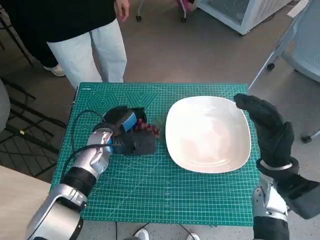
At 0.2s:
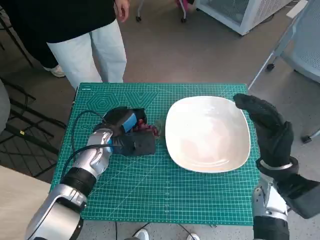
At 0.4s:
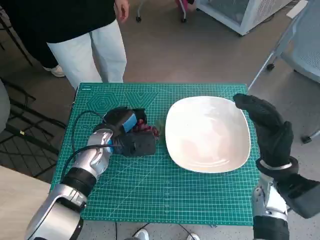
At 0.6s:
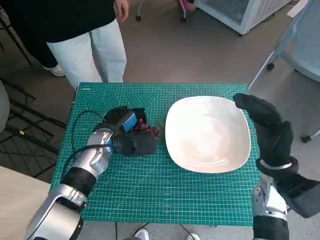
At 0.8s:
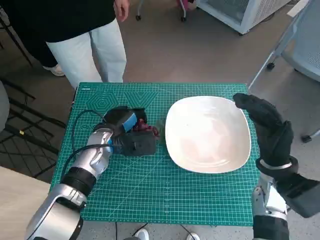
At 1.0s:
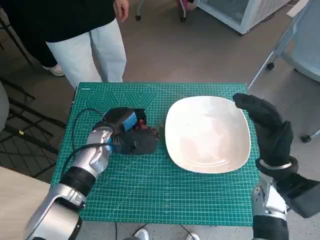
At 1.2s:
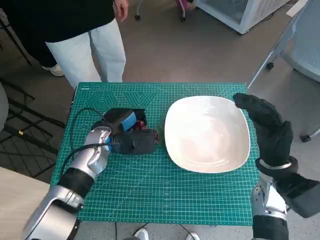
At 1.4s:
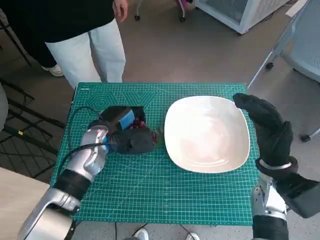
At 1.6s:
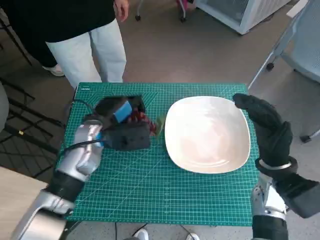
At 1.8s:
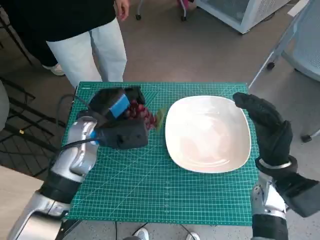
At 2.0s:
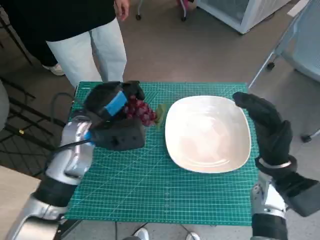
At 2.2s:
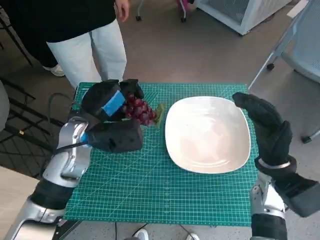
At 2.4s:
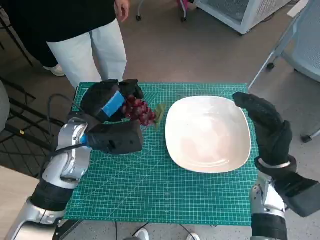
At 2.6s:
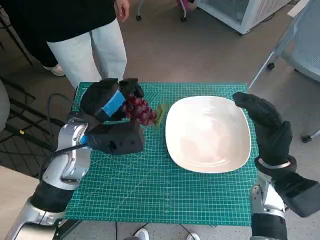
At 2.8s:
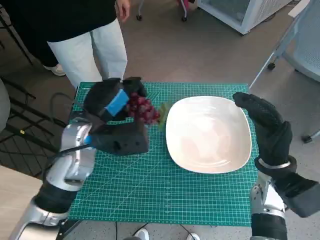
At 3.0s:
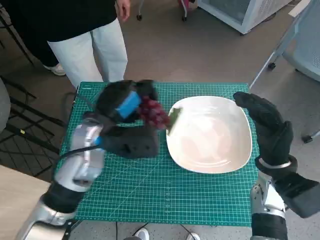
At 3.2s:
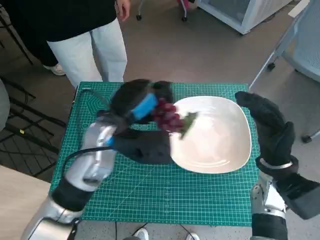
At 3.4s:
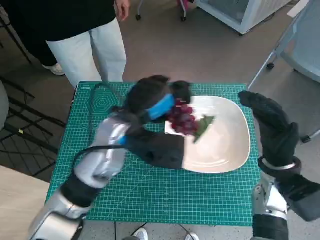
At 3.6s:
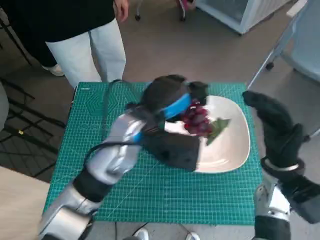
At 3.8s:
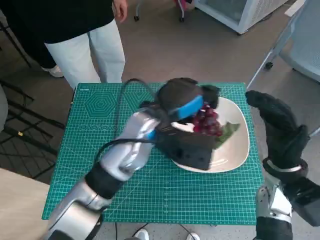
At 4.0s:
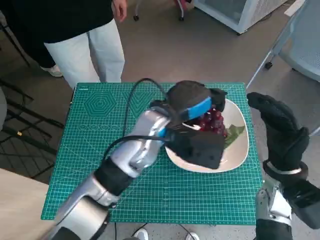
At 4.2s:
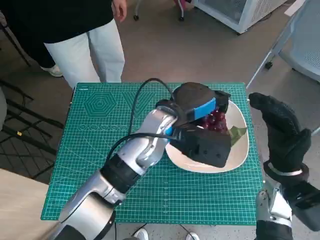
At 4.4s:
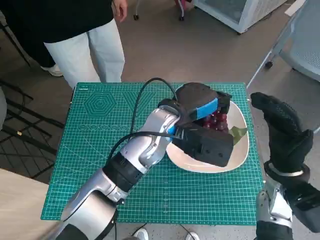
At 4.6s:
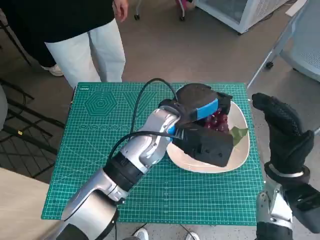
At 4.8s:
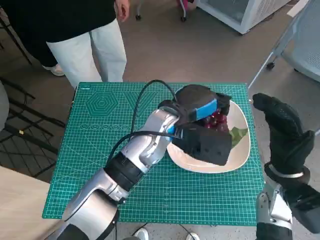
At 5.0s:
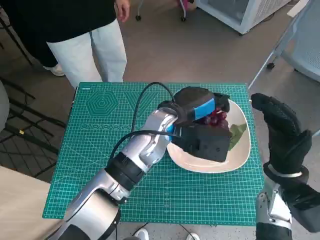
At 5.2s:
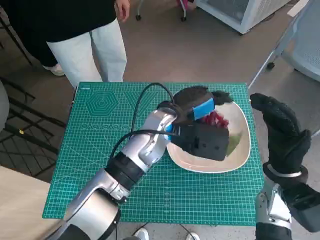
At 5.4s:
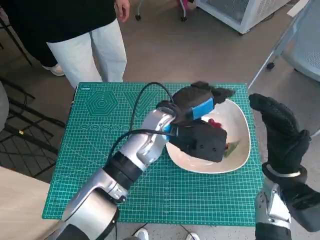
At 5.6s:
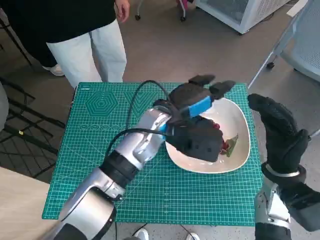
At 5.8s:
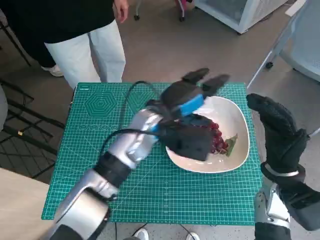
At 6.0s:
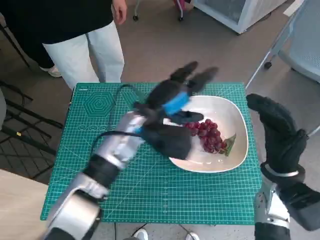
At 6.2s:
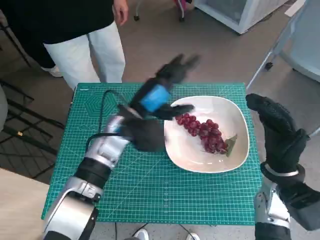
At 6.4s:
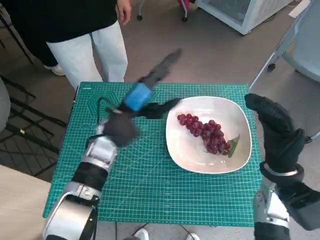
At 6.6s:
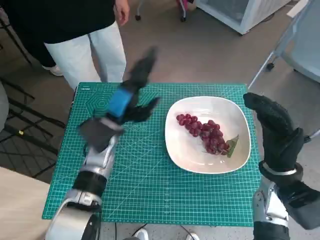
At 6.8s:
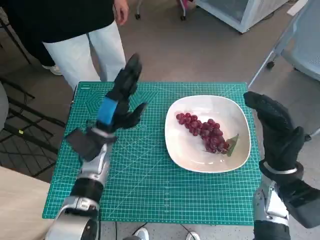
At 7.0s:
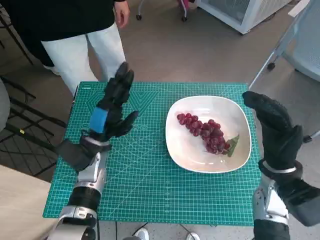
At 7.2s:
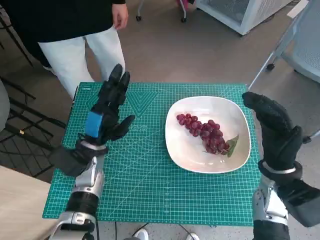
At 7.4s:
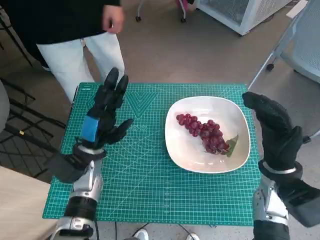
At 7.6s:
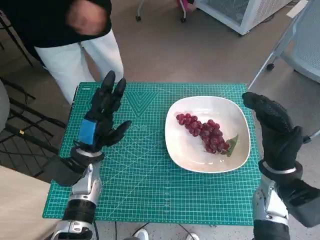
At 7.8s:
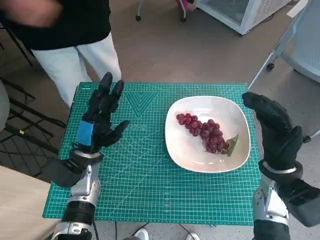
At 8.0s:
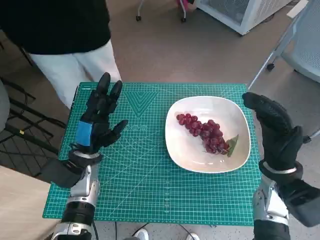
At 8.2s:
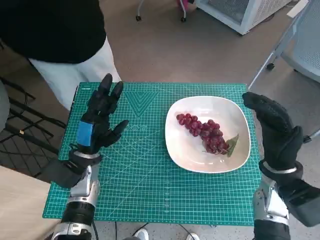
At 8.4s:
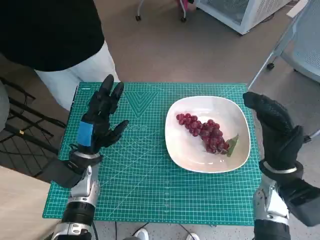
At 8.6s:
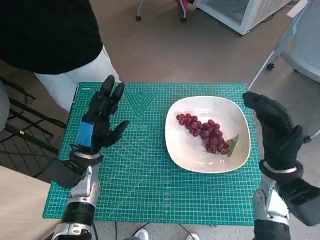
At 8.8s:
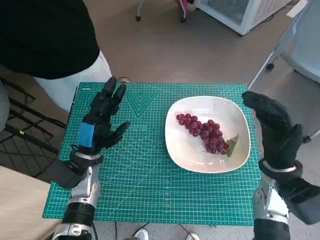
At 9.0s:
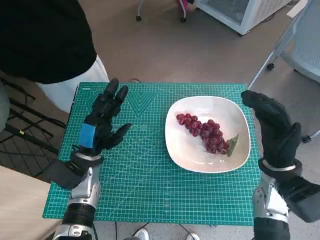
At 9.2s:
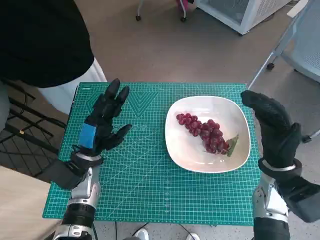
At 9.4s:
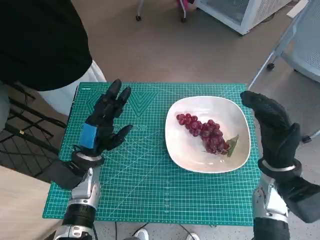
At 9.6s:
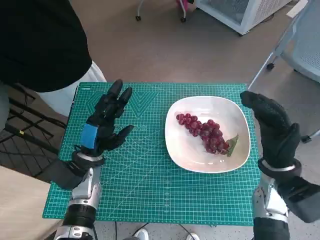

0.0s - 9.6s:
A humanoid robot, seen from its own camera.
Task of the whole recording: Pick up the grapes and put them on the plate.
Step, 1.0s - 5.4s: Place the grapes in the plate with left hand.
0.0s - 1.6s: The hands make only small movements.
1.6s - 3.2s: The left hand shifts some 5 cm upward.
3.2s - 4.8s: The left hand travels to the right by roughly 10 cm.
4.8s - 6.4s: The left hand goes some 10 cm to the left.
6.4s - 8.0s: The left hand shifts some 10 cm to the left, downward and backward.
8.0s - 9.6s: Both hands stay put.

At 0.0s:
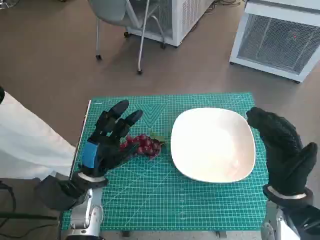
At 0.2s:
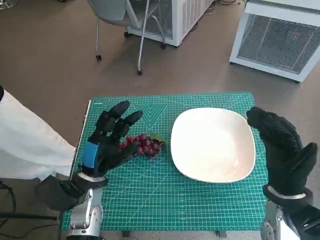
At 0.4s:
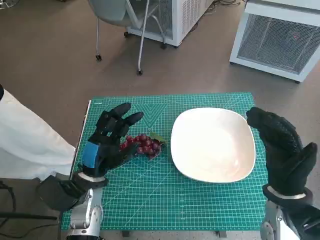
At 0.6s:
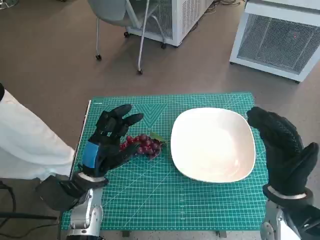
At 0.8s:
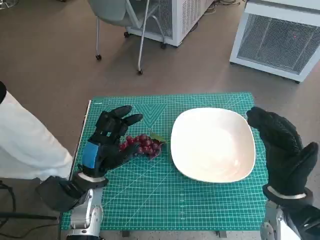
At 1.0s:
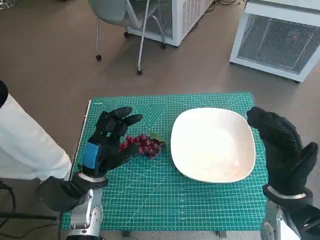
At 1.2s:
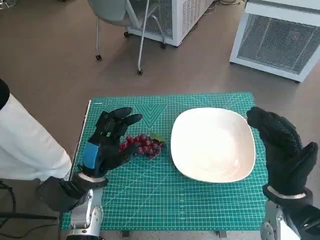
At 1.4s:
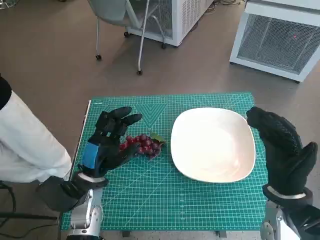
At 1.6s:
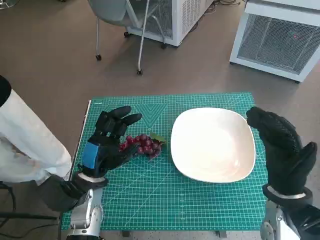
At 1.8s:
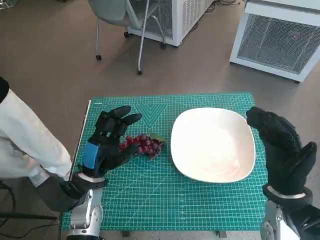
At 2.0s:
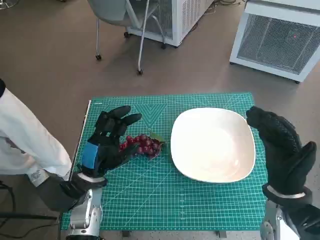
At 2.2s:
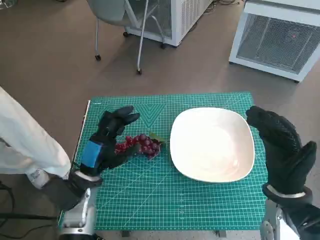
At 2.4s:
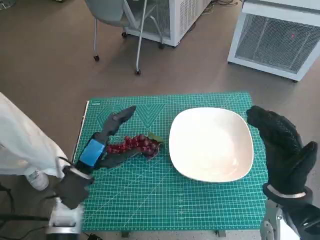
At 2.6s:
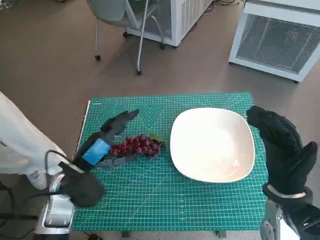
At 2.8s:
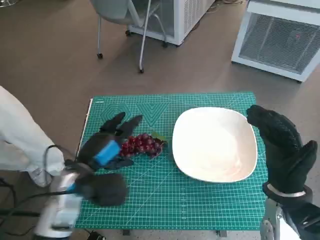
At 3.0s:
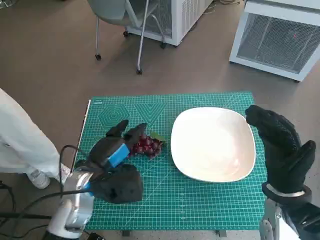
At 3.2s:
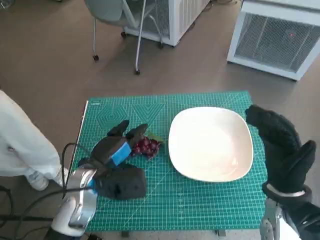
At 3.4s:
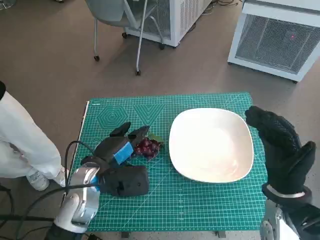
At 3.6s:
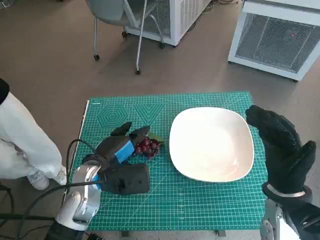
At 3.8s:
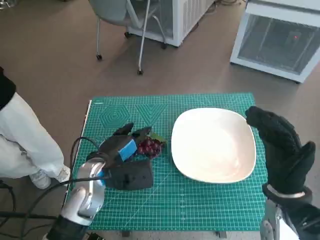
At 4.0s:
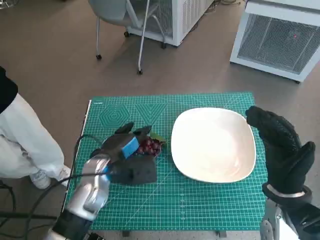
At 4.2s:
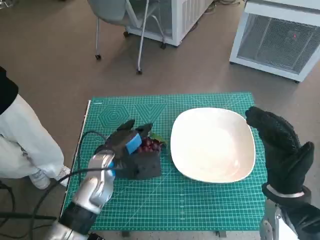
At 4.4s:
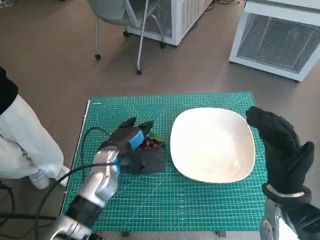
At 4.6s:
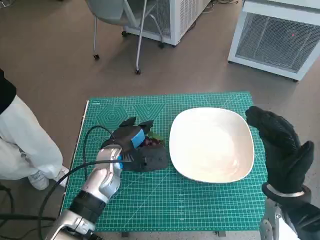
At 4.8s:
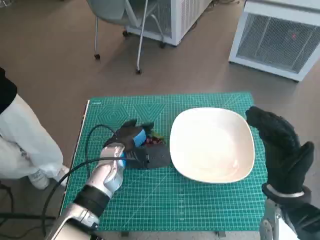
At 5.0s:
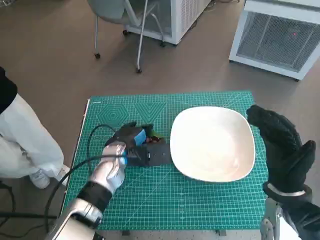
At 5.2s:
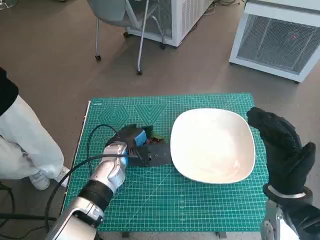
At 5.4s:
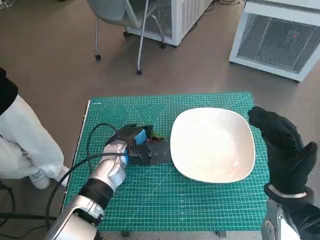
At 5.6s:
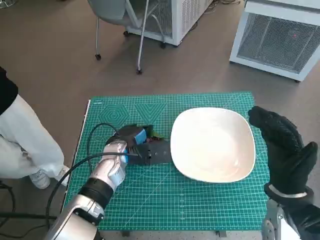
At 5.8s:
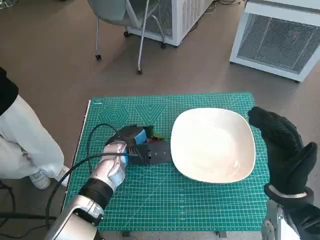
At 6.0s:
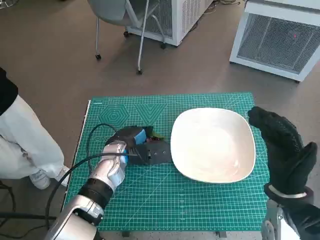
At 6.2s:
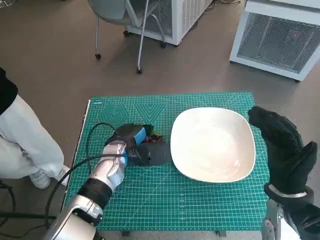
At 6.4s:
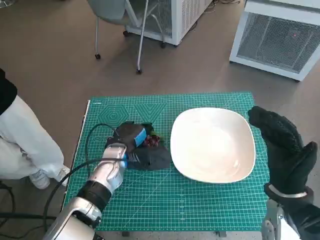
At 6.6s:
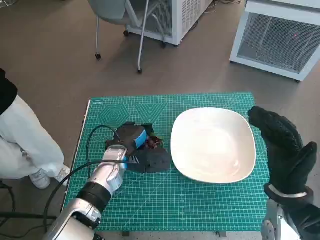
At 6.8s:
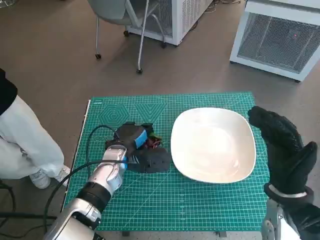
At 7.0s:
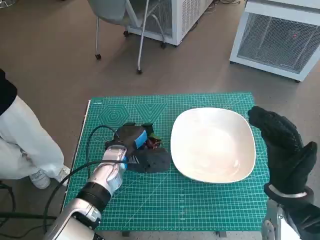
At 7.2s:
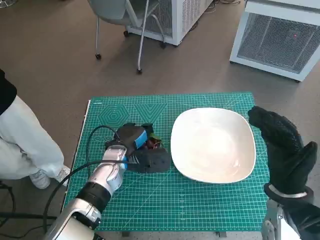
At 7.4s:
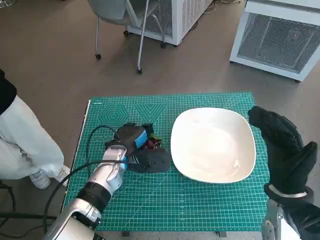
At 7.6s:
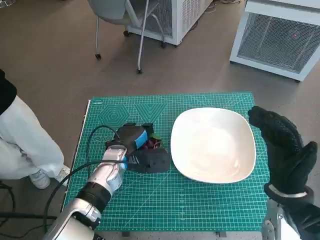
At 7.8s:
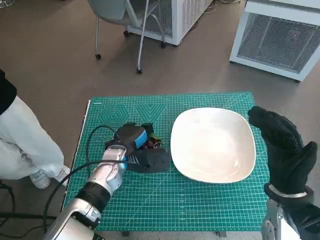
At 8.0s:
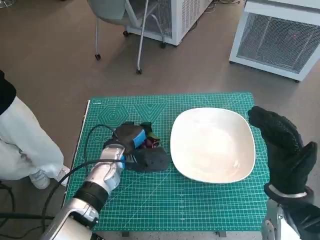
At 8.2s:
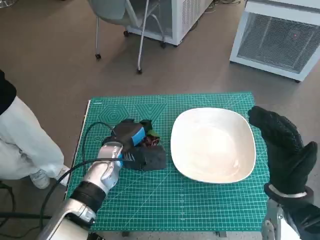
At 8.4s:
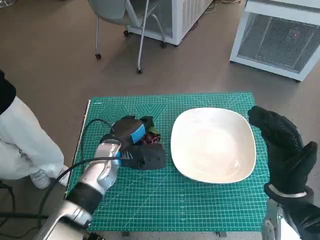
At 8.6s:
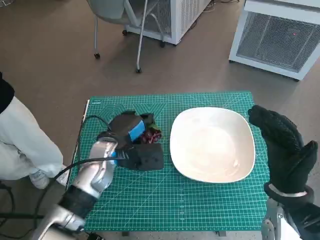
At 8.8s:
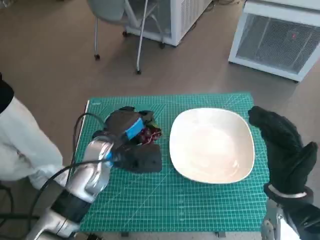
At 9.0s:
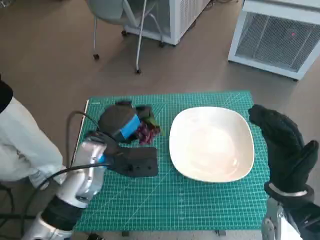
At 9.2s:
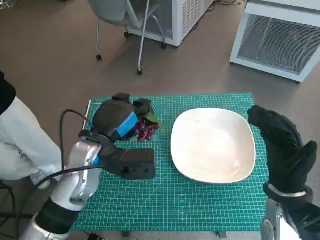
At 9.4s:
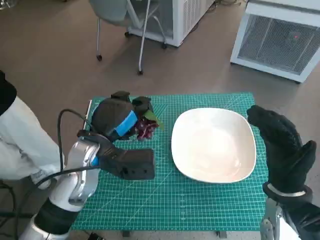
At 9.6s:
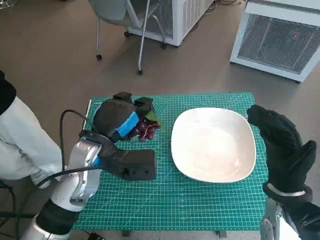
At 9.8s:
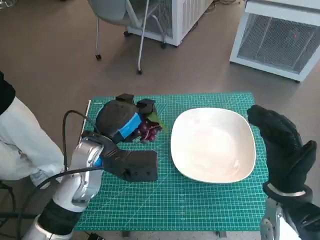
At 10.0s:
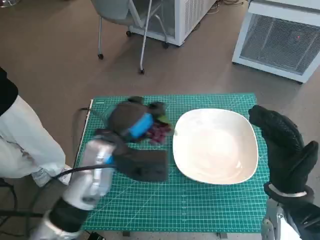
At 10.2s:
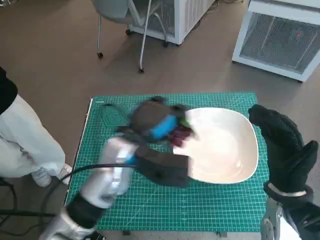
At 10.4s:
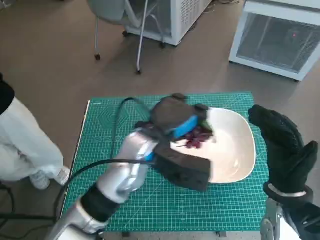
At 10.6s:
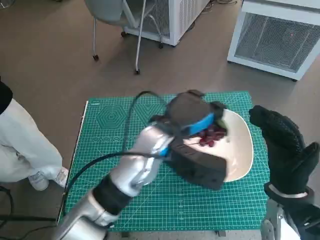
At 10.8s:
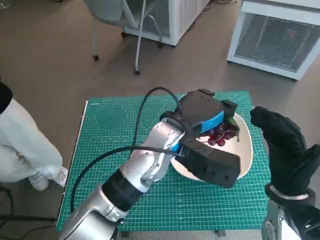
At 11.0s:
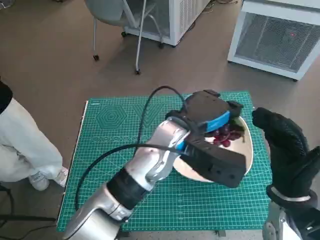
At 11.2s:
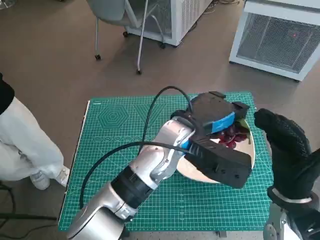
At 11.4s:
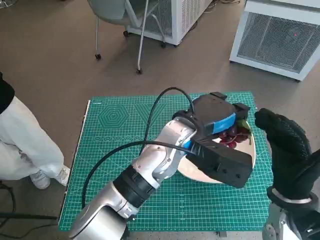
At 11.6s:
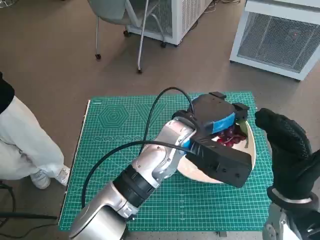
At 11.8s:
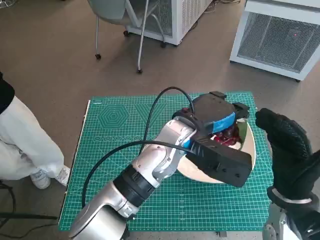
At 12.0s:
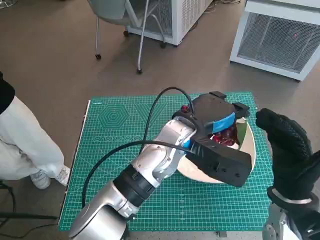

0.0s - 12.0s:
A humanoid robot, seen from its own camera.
Task of the whole recording: Pick up the grapes and put them on the plate.
Step, 0.0s - 7.0s: Grasp the grapes with left hand.
3.0s - 4.4s: The left hand is displaced forward by roughly 5 cm.
4.4s - 7.6s: The hands stay close to where they were, moving slightly.
7.6s - 9.0s: The left hand moves upward, about 10 cm.
9.0s - 10.4s: The left hand travels to the right by approximately 10 cm.
10.4s - 12.0s: The left hand goes roughly 5 cm to the right.

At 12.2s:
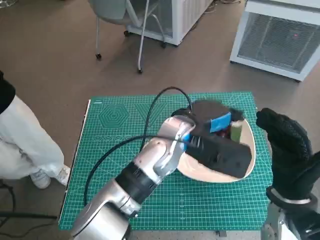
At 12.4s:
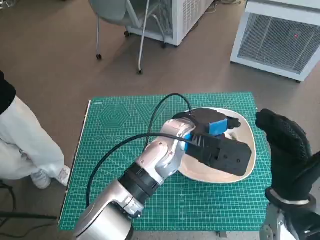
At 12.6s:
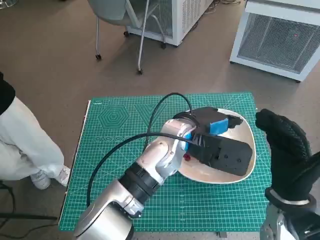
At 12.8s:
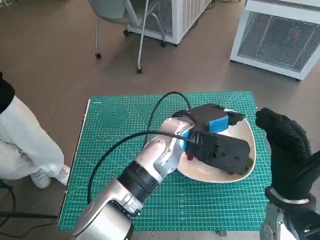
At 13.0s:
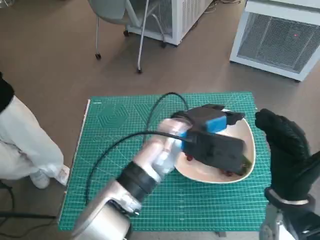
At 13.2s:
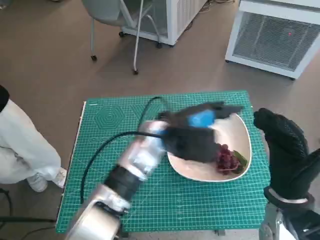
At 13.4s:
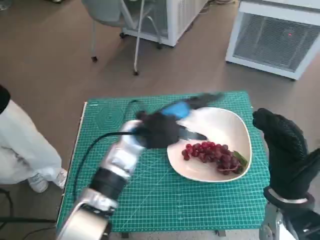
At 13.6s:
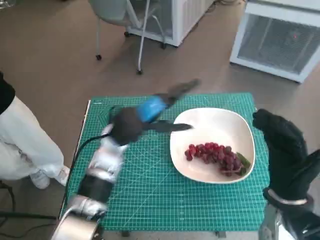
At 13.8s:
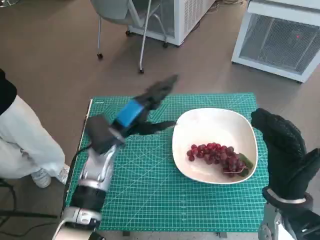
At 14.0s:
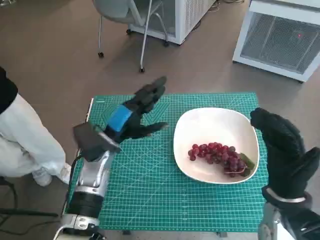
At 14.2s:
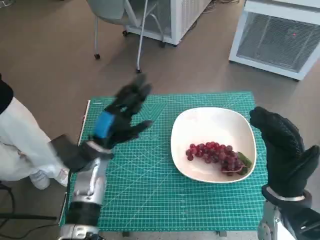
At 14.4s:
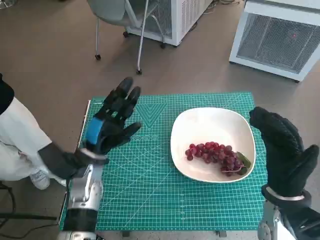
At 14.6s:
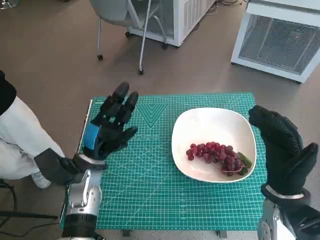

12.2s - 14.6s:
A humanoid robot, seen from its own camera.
Task of the whole recording: Pick up the grapes and put them on the plate.
12.2s - 13.4s: The left hand heads to the left, covering roughly 10 cm.
13.4s - 14.6s: The left hand goes about 15 cm to the left, downward and backward.
